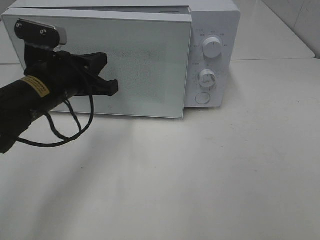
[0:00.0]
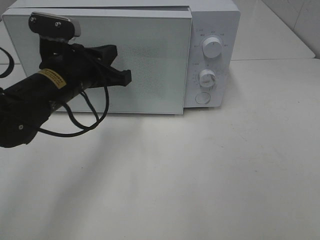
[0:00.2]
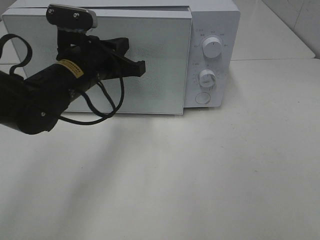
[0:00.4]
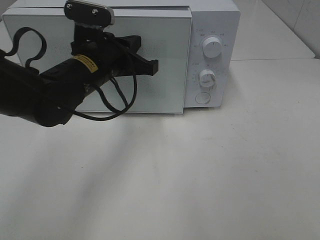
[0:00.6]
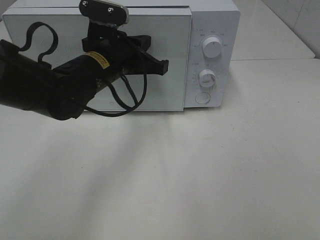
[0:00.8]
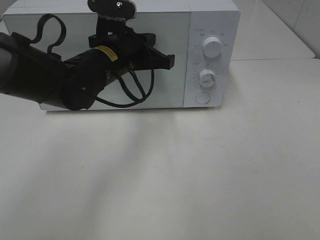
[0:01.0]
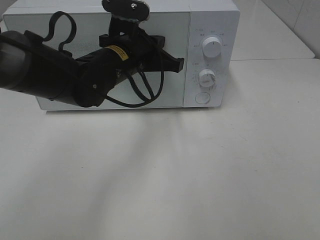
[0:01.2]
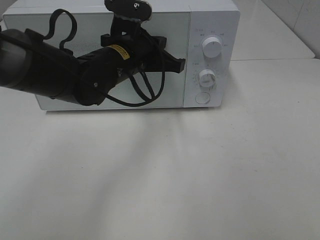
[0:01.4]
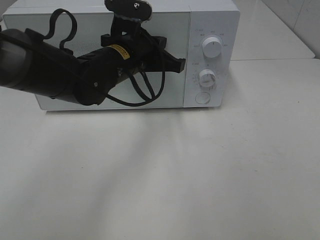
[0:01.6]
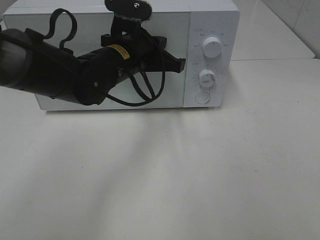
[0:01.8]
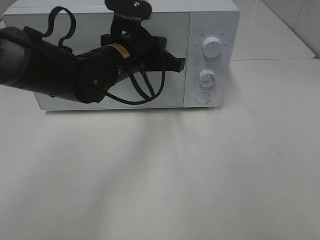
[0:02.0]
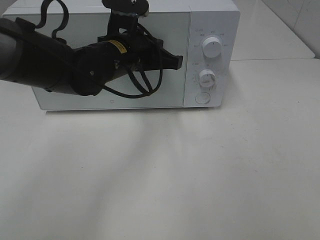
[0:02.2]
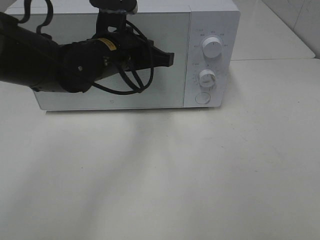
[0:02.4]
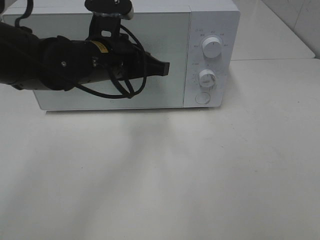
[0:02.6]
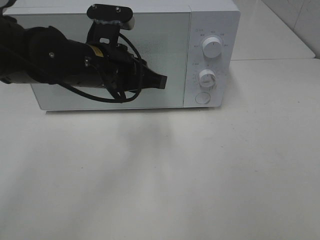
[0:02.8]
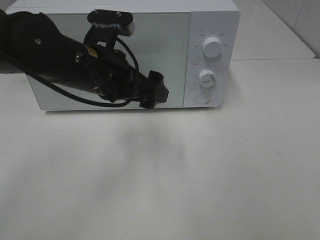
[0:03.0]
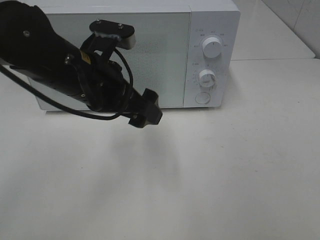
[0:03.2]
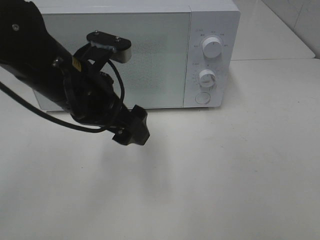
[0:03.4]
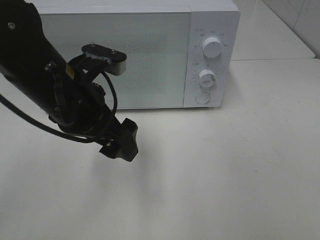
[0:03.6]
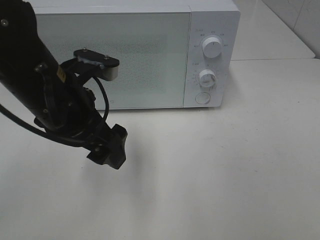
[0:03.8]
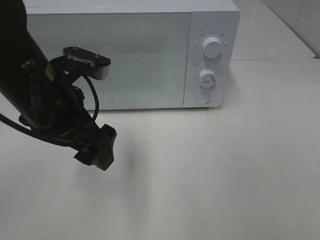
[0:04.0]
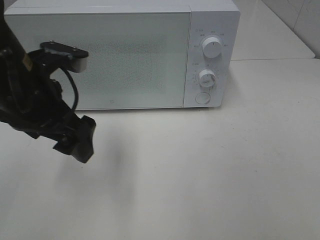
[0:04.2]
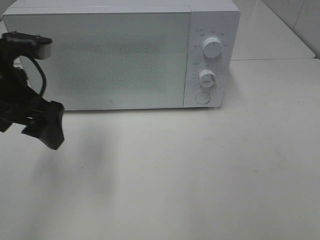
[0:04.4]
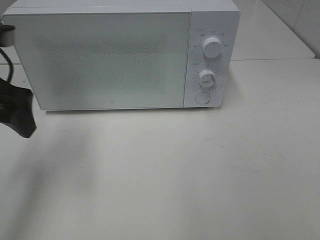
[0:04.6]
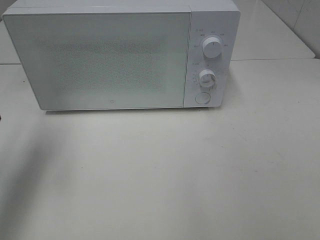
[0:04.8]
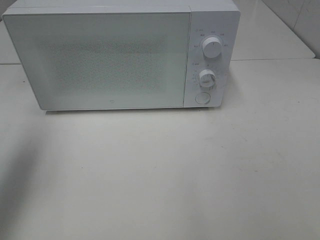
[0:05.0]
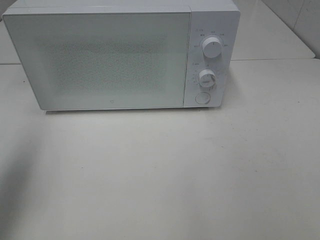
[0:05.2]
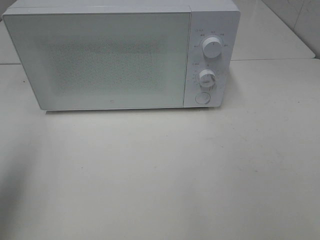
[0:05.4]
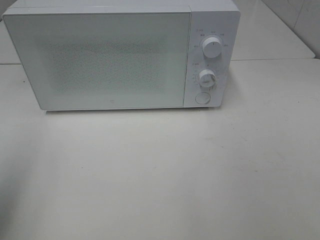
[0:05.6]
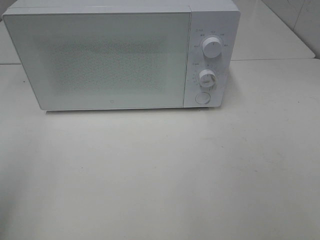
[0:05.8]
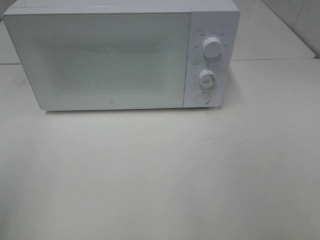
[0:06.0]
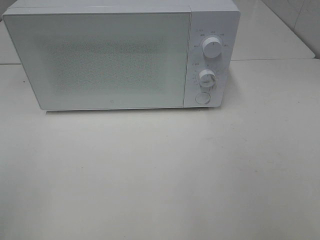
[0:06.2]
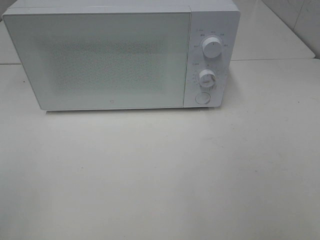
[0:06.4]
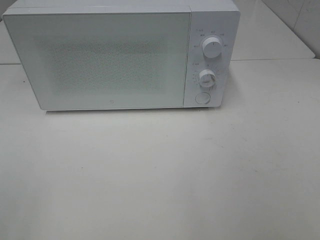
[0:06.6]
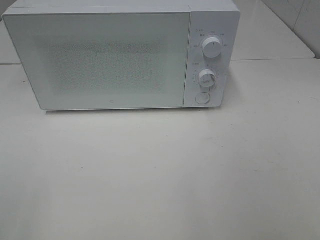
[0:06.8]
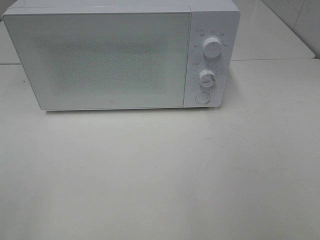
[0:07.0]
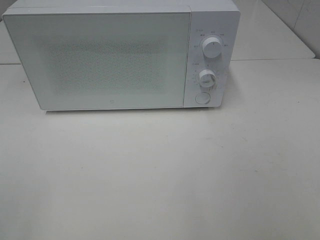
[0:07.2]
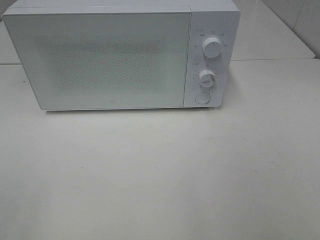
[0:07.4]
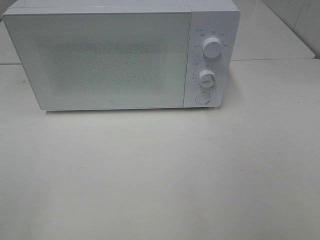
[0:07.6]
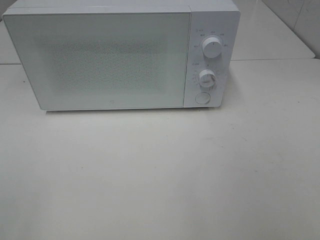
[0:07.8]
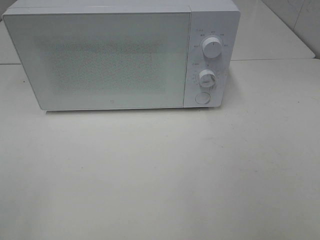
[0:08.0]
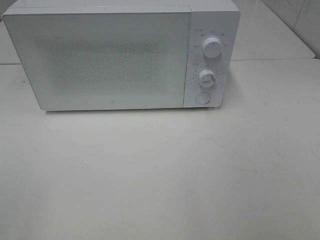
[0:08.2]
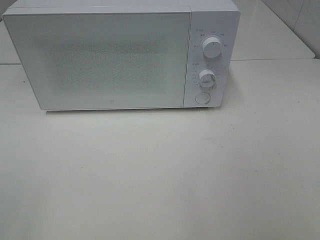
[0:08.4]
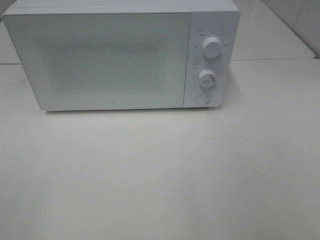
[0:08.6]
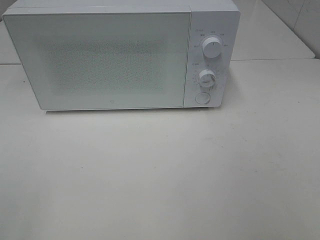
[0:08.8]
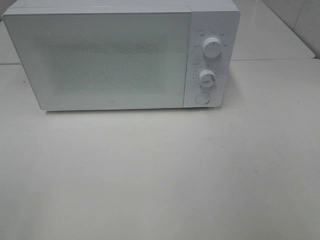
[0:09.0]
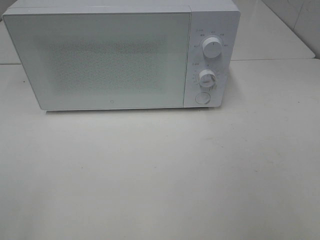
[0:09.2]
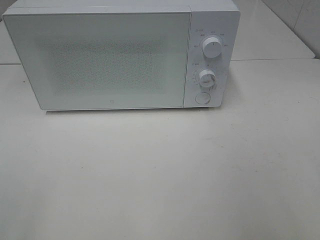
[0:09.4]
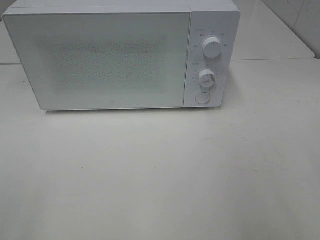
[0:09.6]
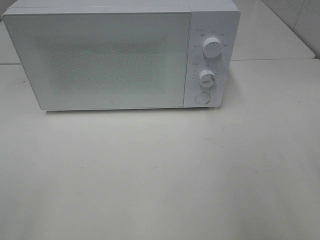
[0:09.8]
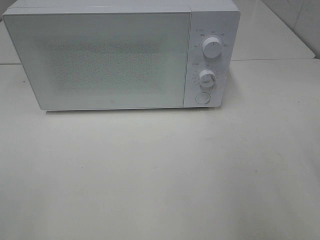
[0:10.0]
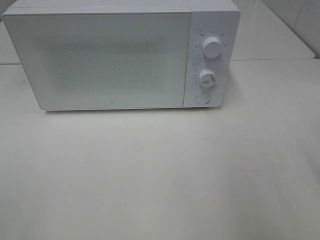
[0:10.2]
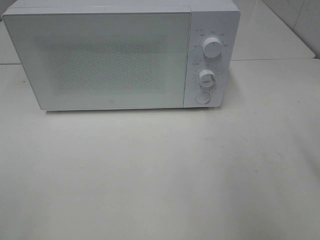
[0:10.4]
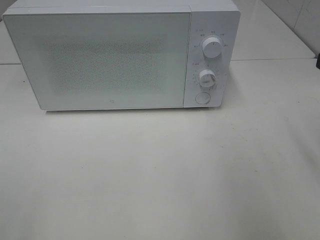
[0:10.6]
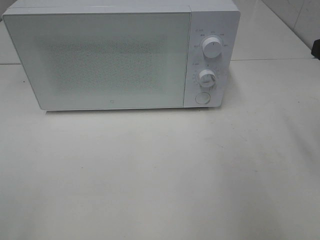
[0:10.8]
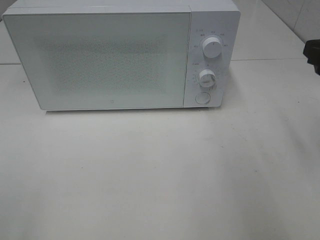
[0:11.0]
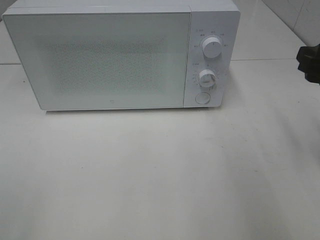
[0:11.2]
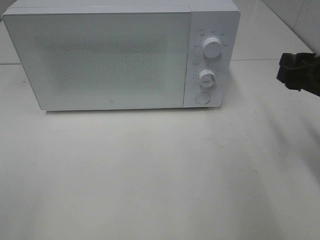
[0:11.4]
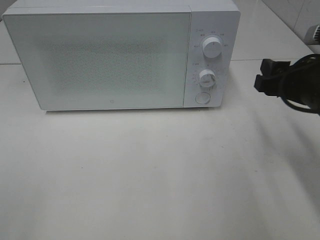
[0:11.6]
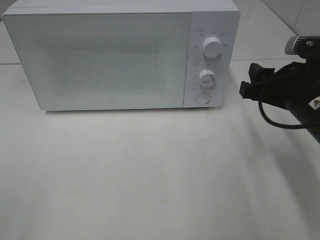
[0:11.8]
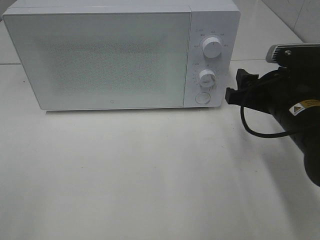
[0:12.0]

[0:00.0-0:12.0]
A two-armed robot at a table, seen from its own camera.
Task of the whole recording: Heat Sandwich.
Step, 0:00.0 to 0:03.0: Left hand: close the microwave door.
0:00.0 to 0:01.6: The left gripper goes roughly 10 cm to the right and forward.
0:01.6 to 0:03.0: The left gripper heads backward, covering about 5 cm, and opens its fingers.
0:03.0 to 0:04.4: The left gripper shifts about 10 cm to the left.
0:04.4 to 0:06.0: The left gripper heads backward and to the left, covering approximately 20 cm.
0:10.4 to 0:12.0: The right gripper goes some 15 cm downward, to the left and forward.

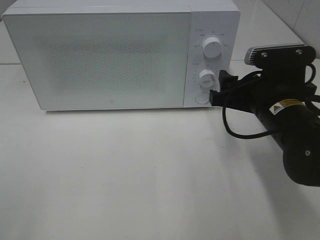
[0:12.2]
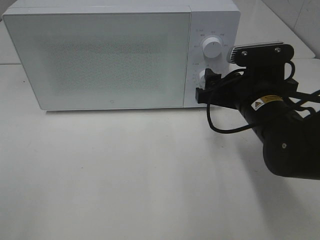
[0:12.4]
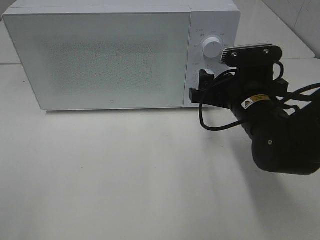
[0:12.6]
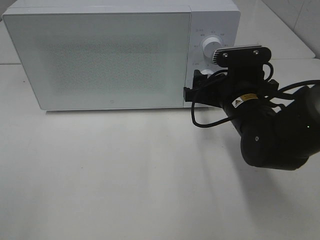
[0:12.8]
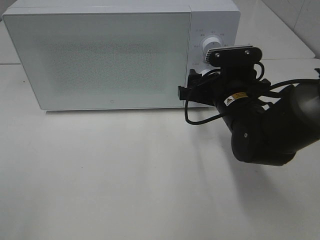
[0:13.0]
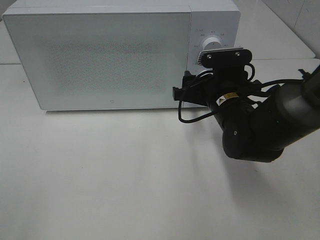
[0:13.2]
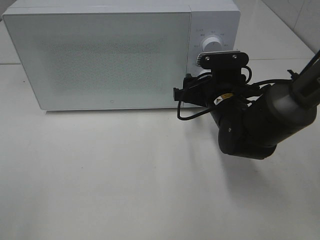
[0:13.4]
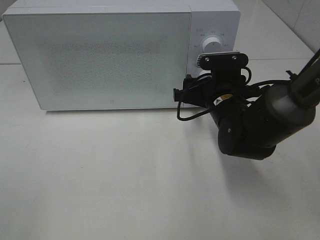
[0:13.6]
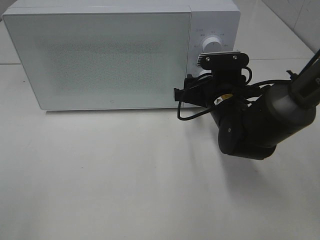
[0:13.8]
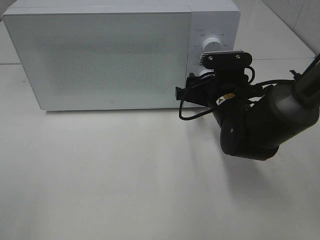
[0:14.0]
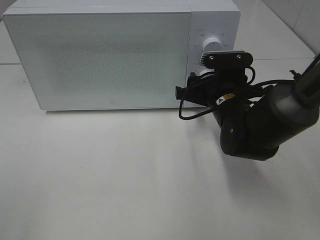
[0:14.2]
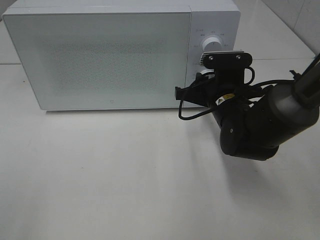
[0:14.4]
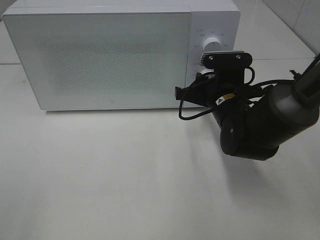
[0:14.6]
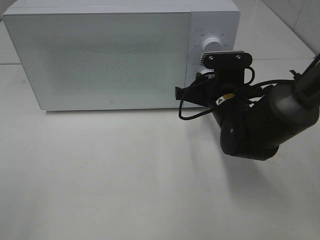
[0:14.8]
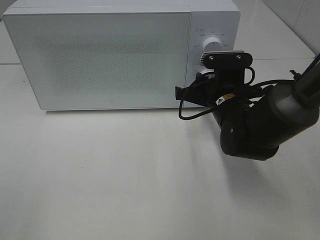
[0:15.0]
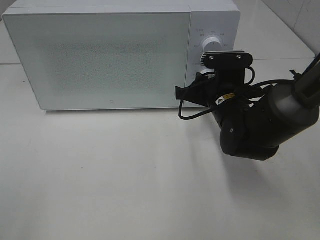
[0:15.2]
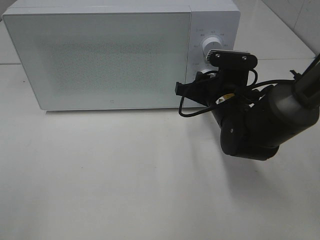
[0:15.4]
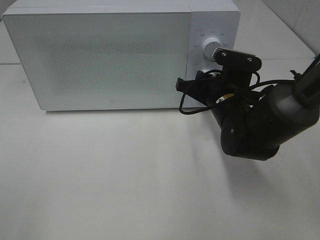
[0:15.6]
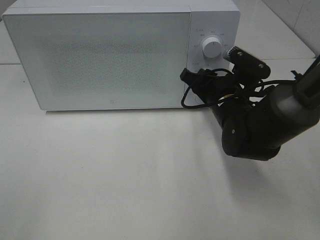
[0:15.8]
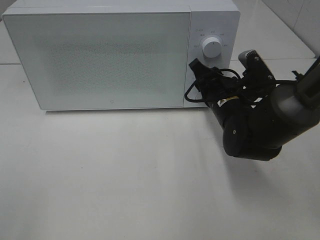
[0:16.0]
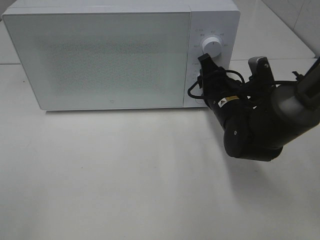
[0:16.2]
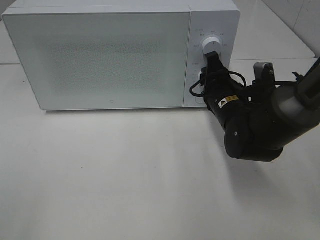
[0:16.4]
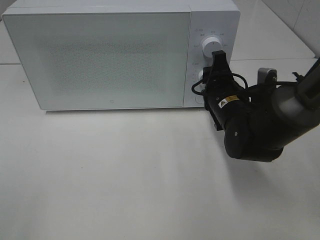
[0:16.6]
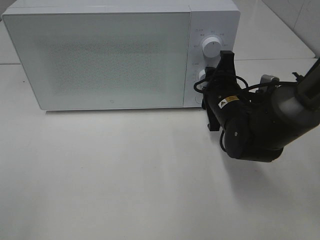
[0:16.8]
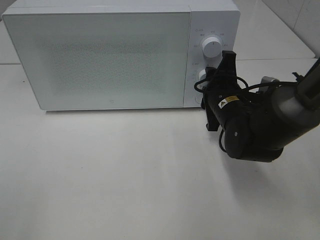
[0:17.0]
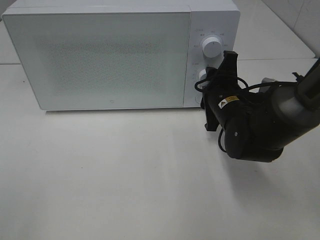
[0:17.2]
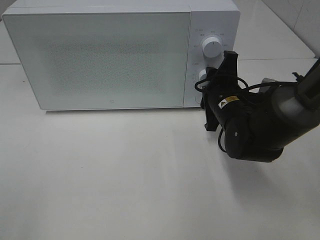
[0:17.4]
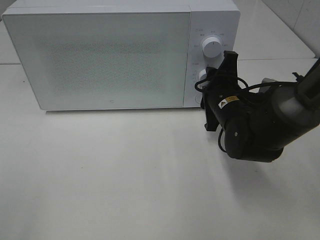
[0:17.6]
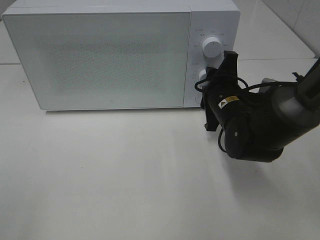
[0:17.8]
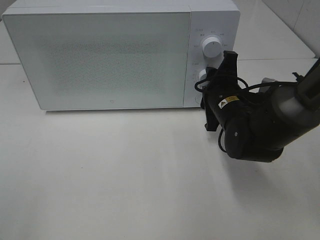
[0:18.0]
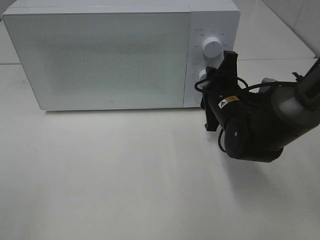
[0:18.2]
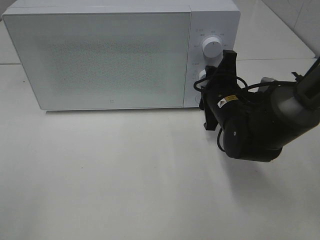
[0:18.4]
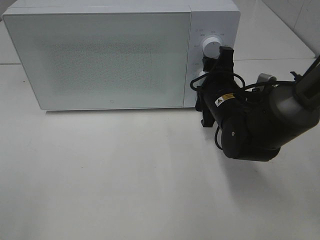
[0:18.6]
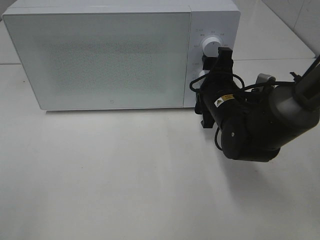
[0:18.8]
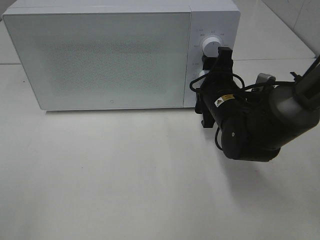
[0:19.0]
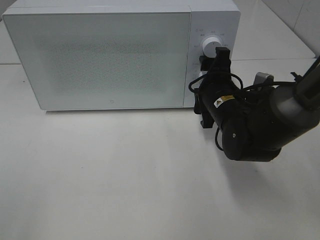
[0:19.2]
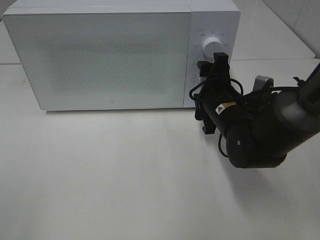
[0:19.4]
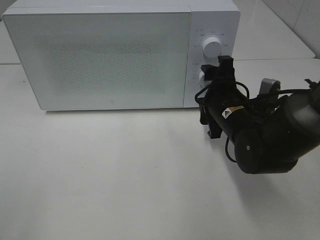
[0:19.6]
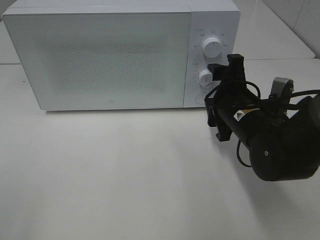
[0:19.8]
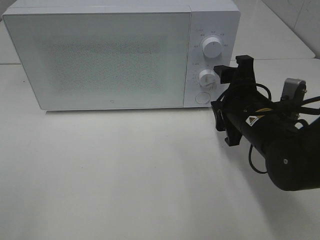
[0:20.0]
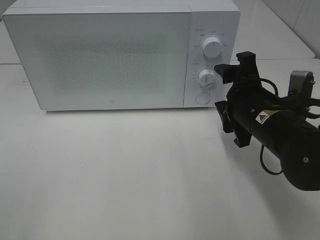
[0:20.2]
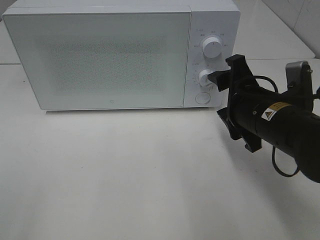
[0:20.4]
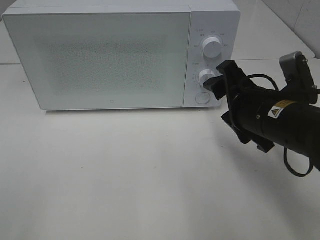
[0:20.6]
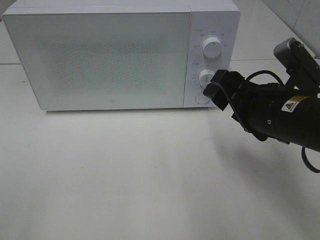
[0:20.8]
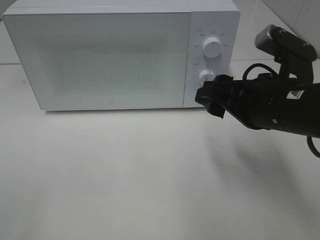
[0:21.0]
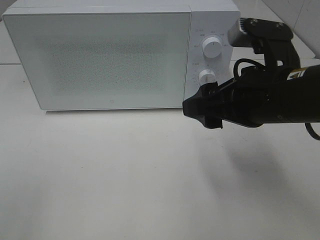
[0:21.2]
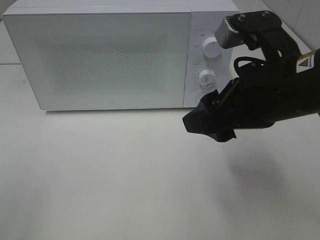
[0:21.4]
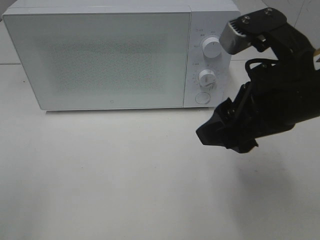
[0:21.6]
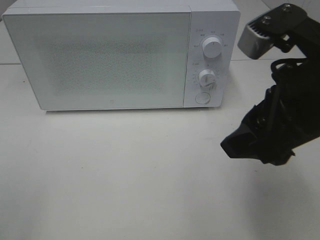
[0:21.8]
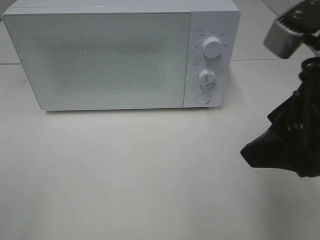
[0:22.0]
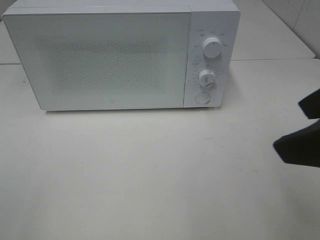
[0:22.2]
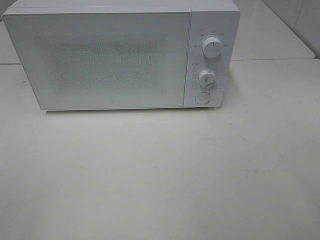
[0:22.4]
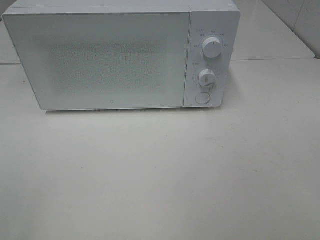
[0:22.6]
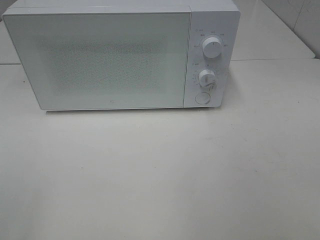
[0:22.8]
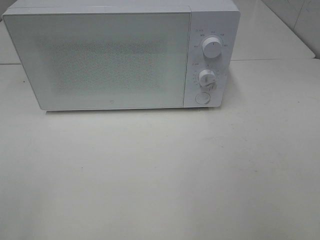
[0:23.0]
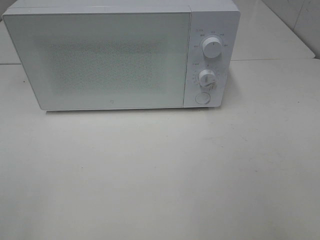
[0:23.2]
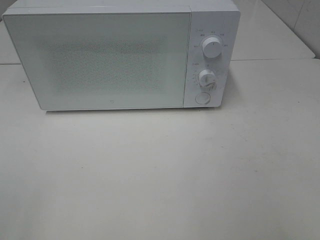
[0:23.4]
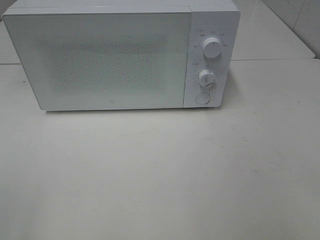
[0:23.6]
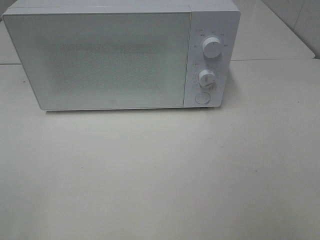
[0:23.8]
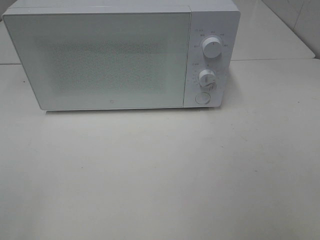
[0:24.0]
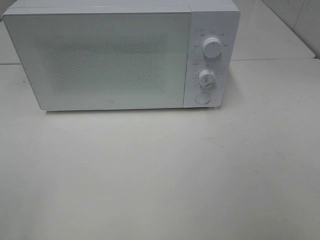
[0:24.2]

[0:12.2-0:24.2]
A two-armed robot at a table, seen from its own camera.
Task of the whole recording: Heat Sandwich.
Step, 0:12.2 to 0:19.4: Right hand: twist timer button.
0:12.2 to 0:13.8: The right gripper heads forward, covering approximately 5 cm.
0:13.8 to 0:15.2: The right gripper closes.
0:16.6 to 0:18.2: The grippers make only small movements.
0:18.2 to 0:19.8: The right gripper opens up.
0:19.8 to 0:21.2: The right gripper moves upward and backward, about 15 cm.
0:21.2 to 0:22.6: The right gripper heads backward, upward and to the right, covering about 20 cm.
